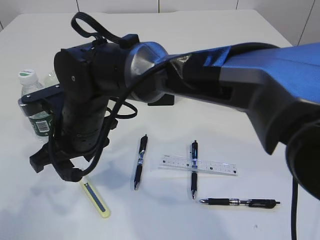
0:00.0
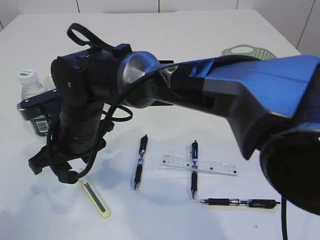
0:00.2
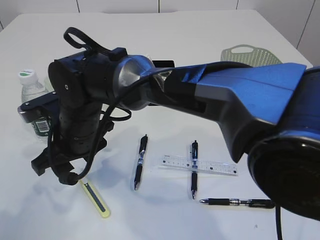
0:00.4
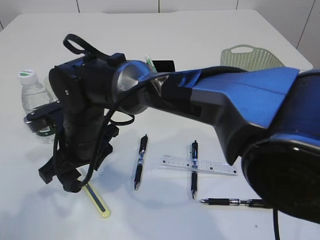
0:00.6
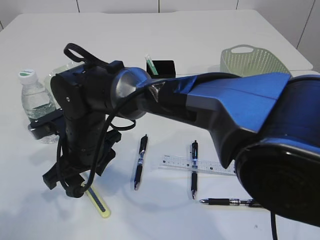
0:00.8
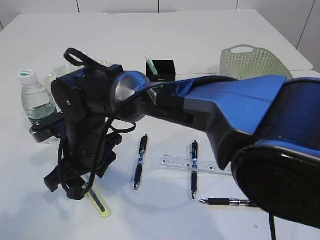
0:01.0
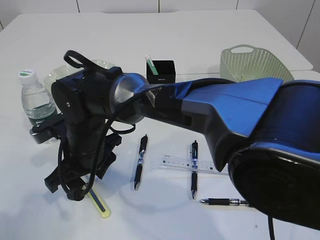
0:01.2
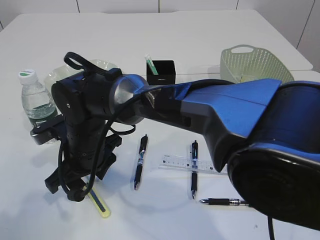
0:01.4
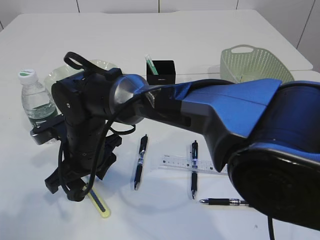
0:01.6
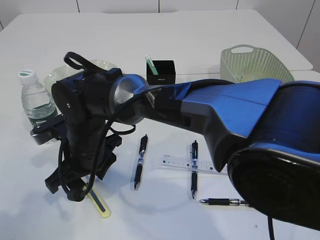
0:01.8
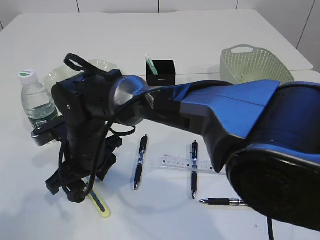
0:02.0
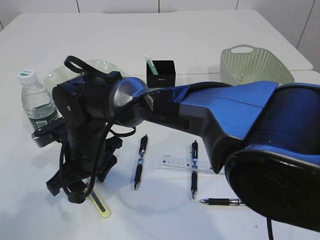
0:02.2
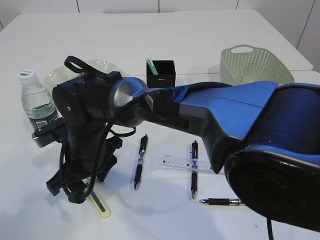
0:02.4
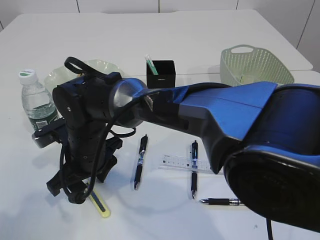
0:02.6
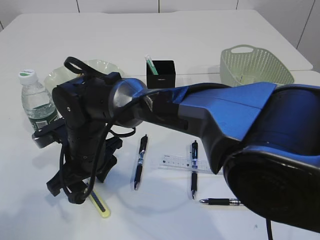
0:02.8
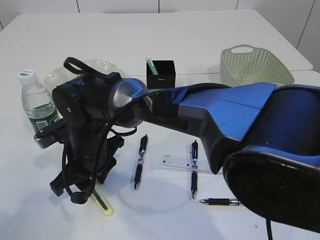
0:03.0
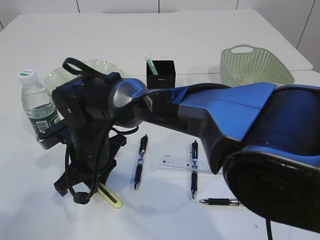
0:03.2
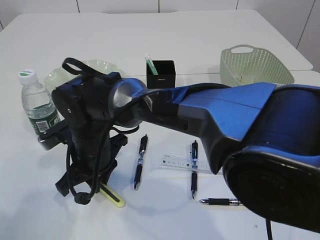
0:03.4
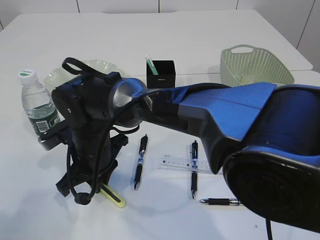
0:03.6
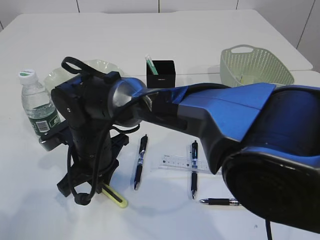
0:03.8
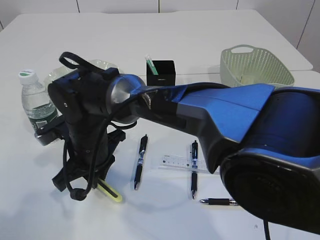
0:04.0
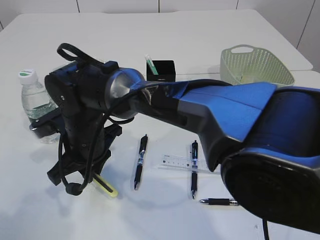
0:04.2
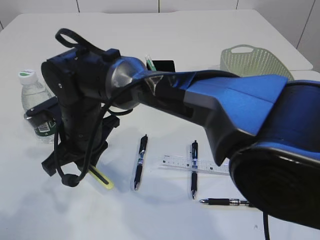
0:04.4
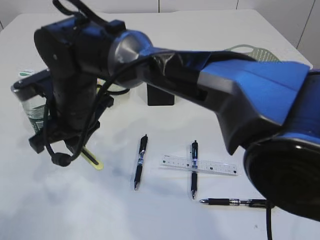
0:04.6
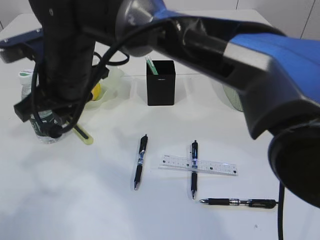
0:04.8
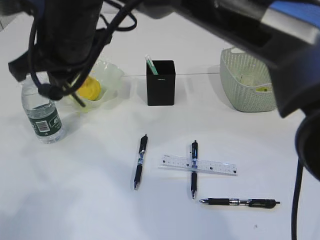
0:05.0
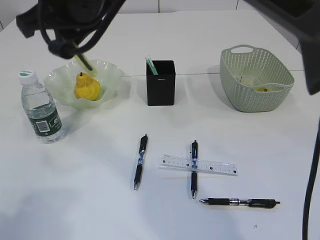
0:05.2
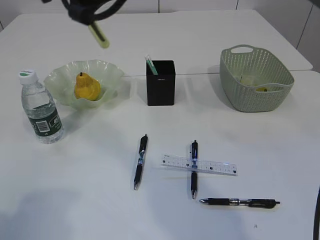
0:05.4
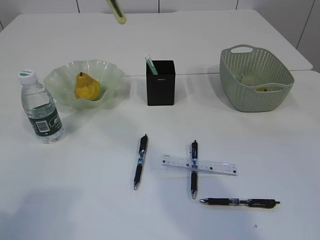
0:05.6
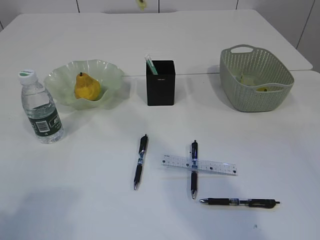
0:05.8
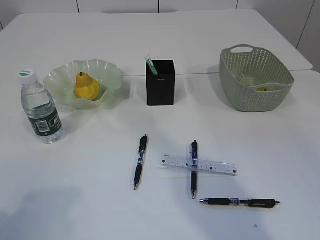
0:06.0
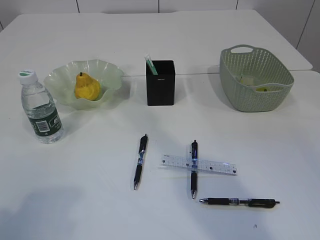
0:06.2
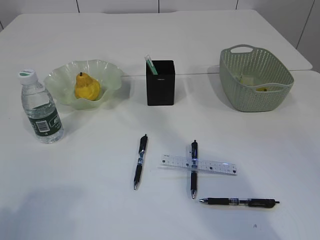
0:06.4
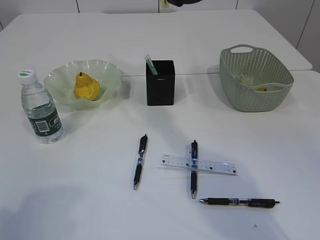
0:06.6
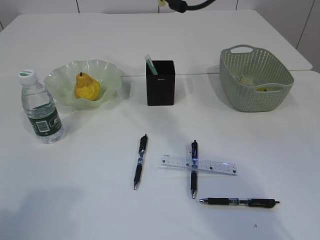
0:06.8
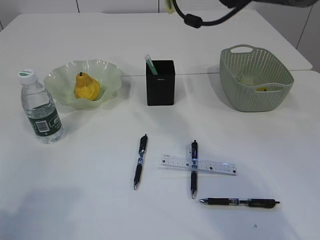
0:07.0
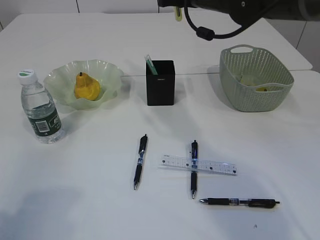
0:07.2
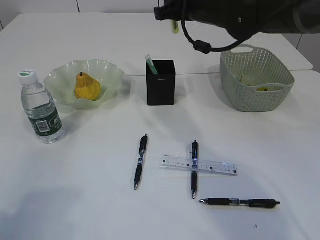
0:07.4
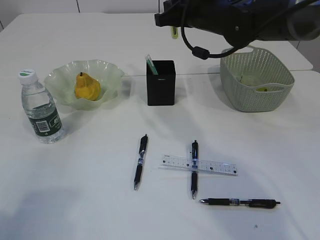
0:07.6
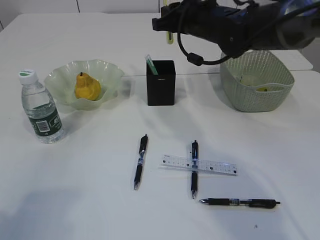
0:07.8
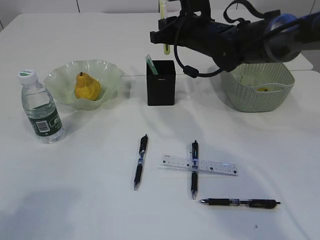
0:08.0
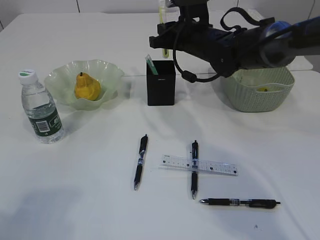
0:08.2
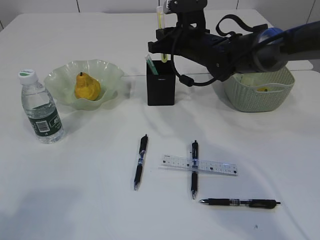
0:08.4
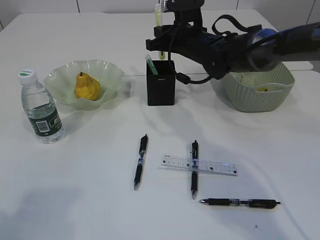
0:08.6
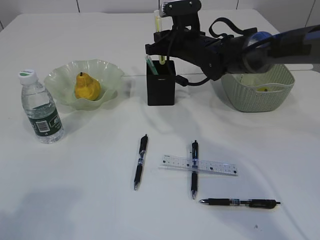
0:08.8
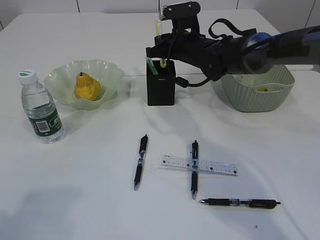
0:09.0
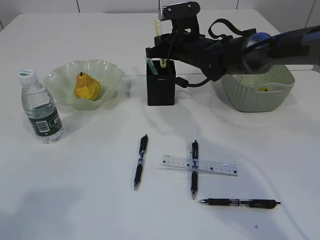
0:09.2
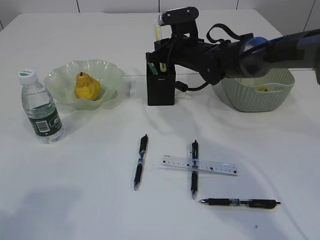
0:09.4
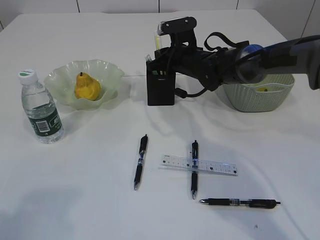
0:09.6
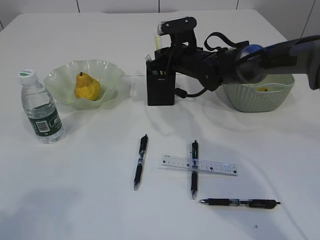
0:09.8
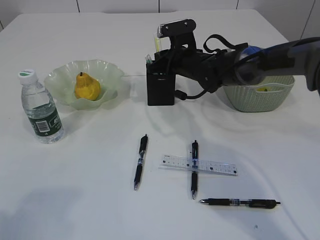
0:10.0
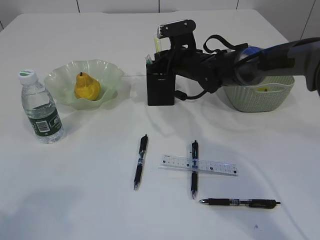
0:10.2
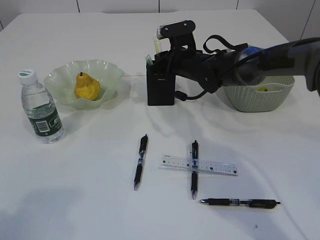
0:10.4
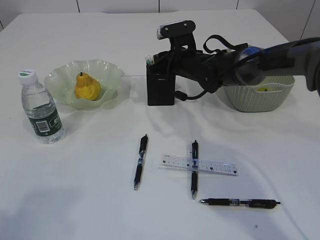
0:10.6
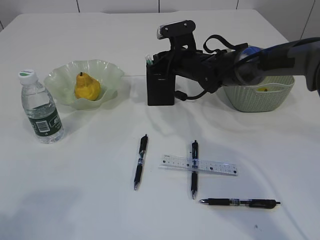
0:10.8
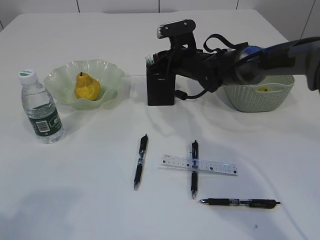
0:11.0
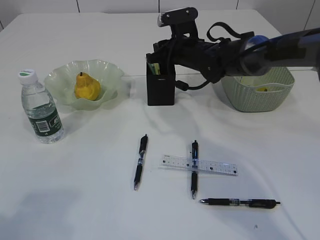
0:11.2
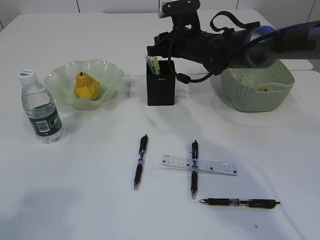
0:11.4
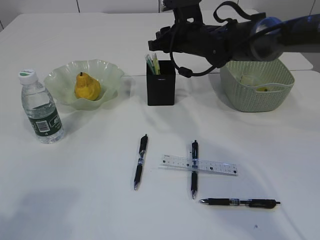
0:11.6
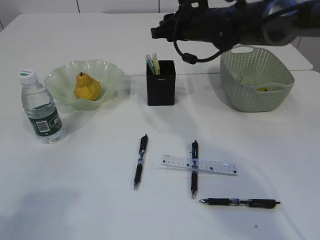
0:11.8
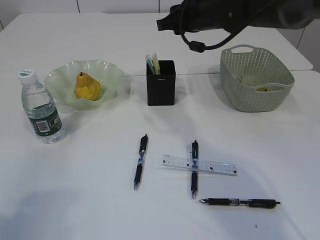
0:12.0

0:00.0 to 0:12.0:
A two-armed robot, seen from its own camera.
Step, 0:00.0 to 0:04.2: pick up the yellow knife.
Step, 0:04.4 to 0:11.4: place the yellow knife into the pen holder.
0:00.0 to 0:01.6: The right gripper shifts about 5 cm downward.
0:01.6 to 0:03.0: Both grippers stay put.
0:03.0 to 0:04.4: The right gripper closes its fingers.
0:04.4 to 0:06.0: The right gripper heads upward and to the right, covering some 30 cm.
0:06.0 to 0:07.6: The right gripper shifts some 15 cm downward and to the right.
0:07.6 to 0:09.0: The right gripper is displaced downward by roughly 10 cm.
0:09.0 to 0:10.4: There are only small adjustments of the grippers.
0:10.4 to 0:12.0: The right gripper heads upward, covering approximately 10 cm.

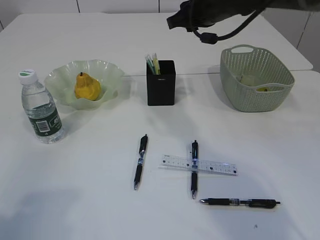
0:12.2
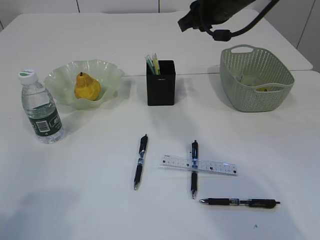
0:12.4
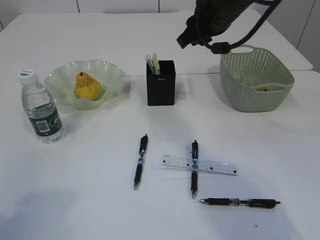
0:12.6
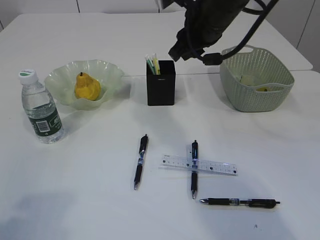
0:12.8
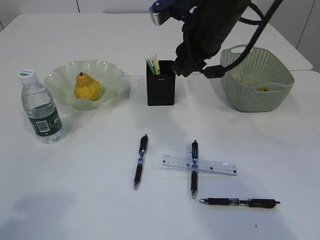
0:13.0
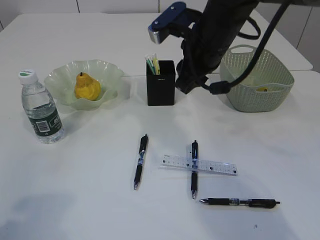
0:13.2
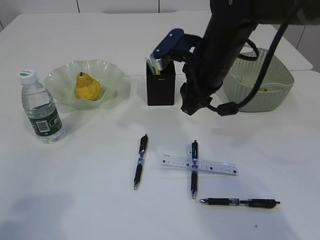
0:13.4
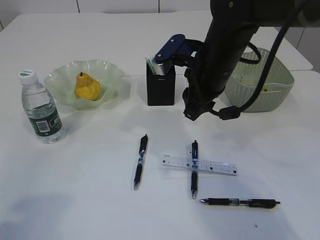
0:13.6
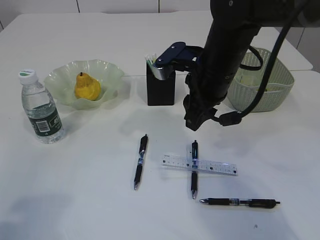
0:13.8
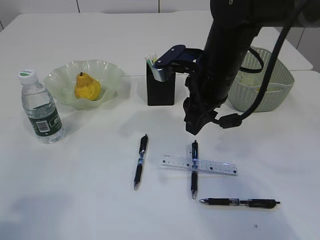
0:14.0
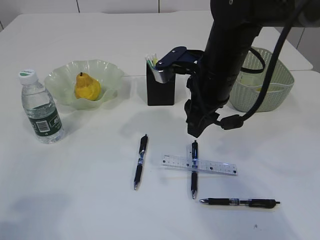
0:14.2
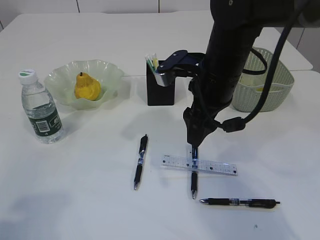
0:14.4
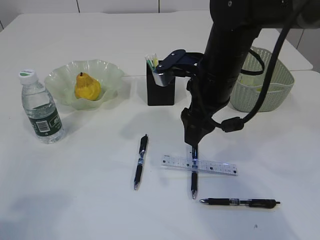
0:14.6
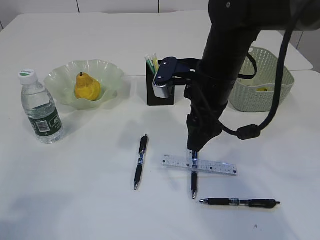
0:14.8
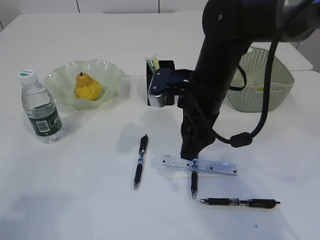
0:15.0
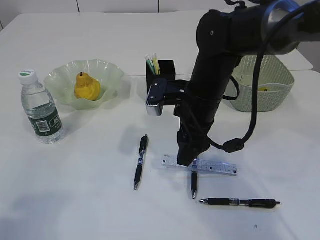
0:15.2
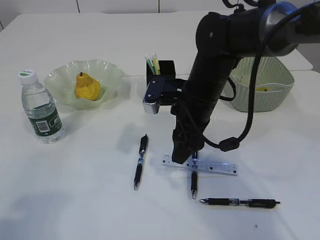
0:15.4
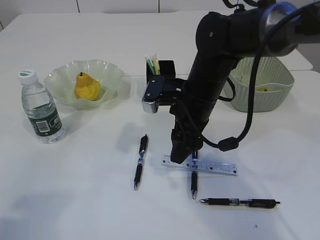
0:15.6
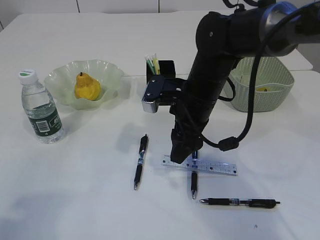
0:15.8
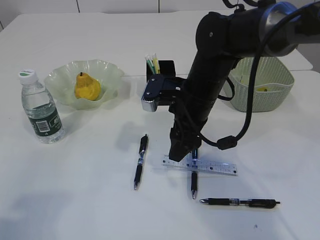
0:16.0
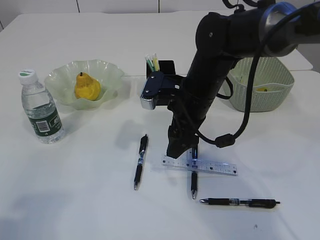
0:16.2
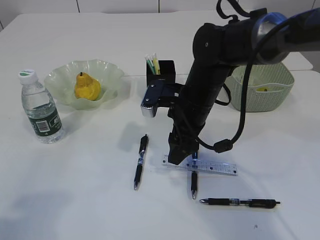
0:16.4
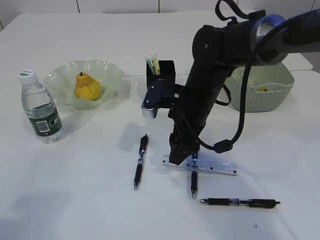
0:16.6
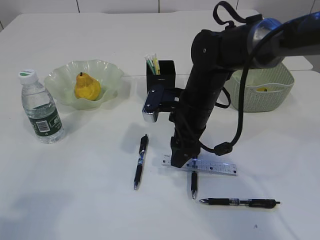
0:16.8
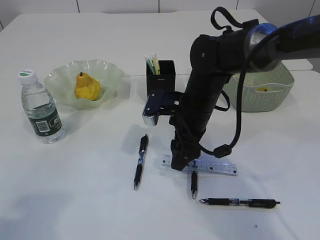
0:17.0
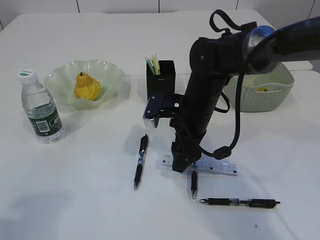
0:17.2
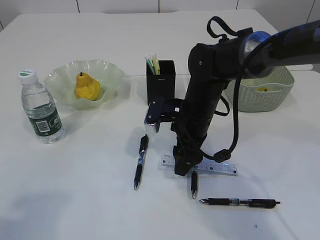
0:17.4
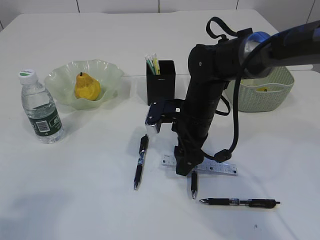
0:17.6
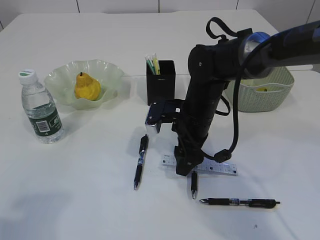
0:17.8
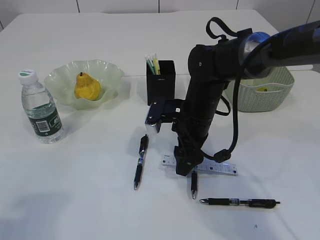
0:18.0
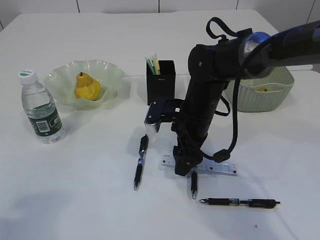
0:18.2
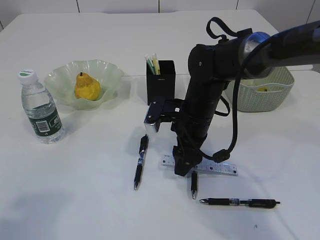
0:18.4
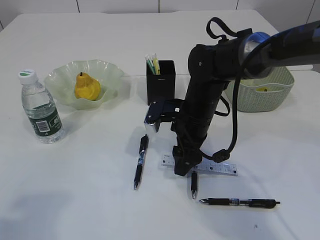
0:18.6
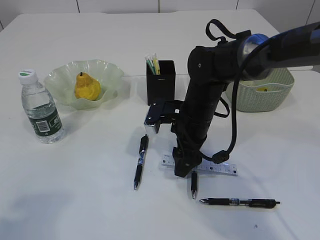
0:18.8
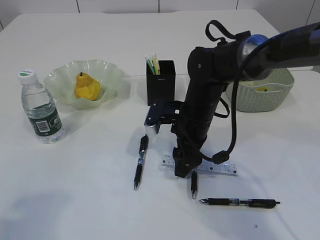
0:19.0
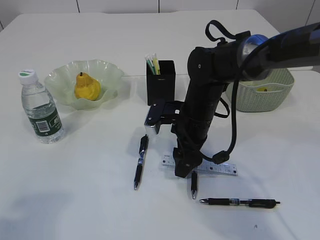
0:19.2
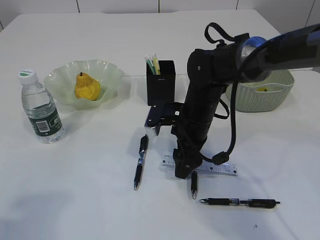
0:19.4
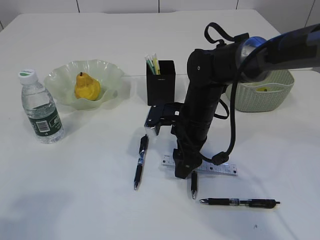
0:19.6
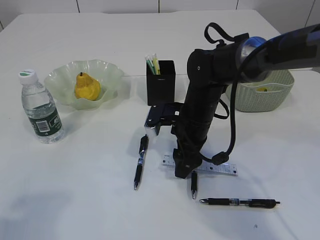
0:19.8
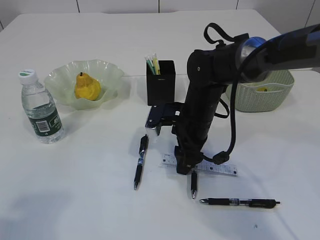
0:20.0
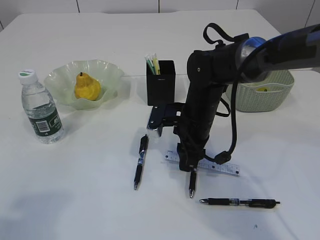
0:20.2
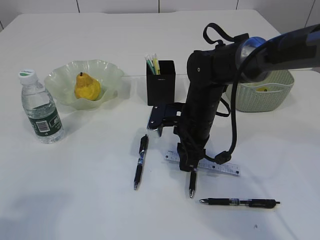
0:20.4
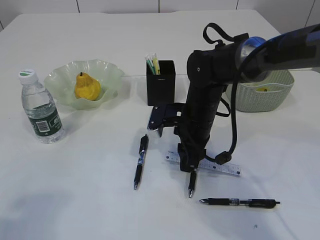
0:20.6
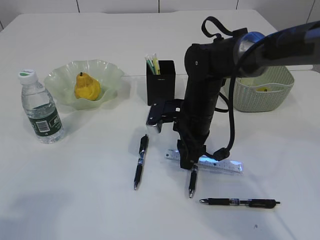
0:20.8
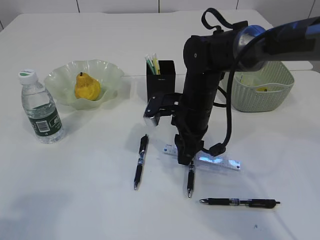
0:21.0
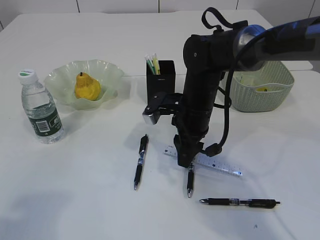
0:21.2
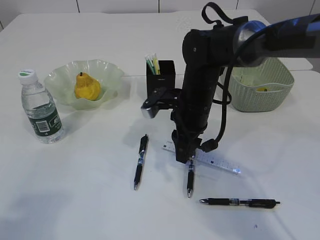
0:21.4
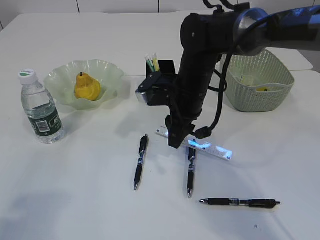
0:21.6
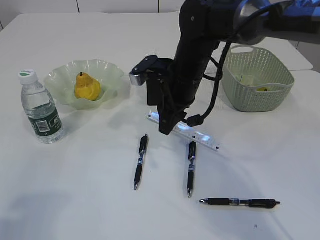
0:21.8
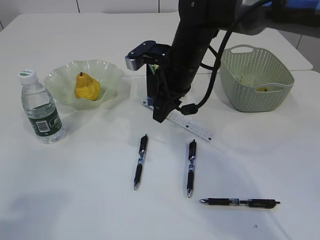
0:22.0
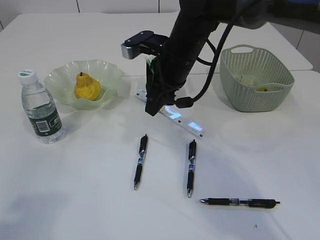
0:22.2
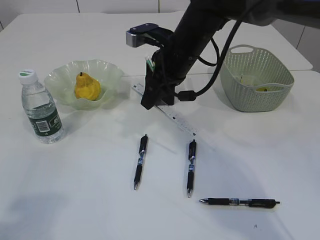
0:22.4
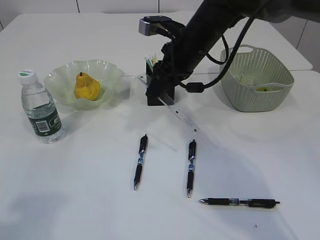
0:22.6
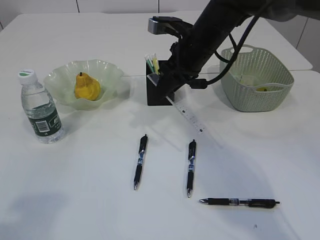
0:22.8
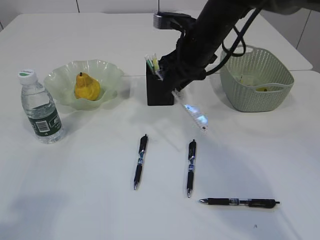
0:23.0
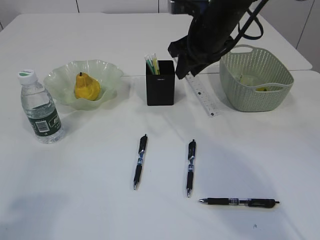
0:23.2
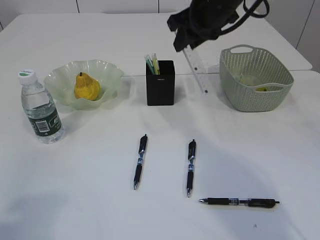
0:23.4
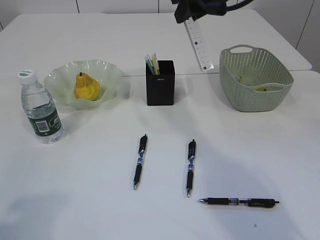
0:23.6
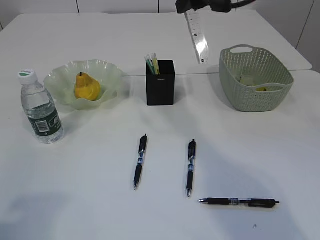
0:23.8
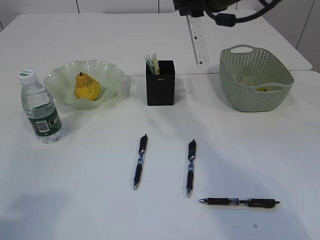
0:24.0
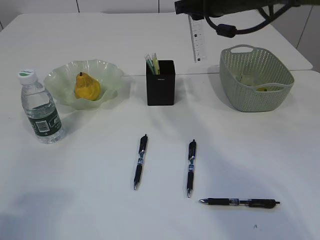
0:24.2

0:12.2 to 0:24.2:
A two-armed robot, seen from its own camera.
Step, 0:12.2 to 0:21.4: pick up the ruler.
0:12.2 to 0:13.8: The right gripper is displaced backward and downward by roughly 10 cm.
0:13.8 to 0:15.2: The right gripper opens its fingers.
0:15.2 to 0:18.2: The grippers make only small movements.
0:18.2 to 0:19.8: Both grippers stay put.
0:19.8 to 0:21.2: The right gripper closes.
0:21.2 to 0:22.6: The right gripper shifts about 10 cm upward and forward.
0:22.6 to 0:24.2: The right gripper travels upward and to the right by some 10 cm.
